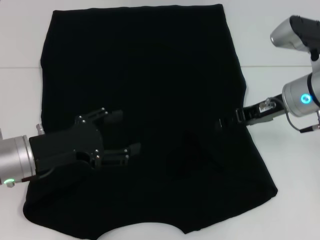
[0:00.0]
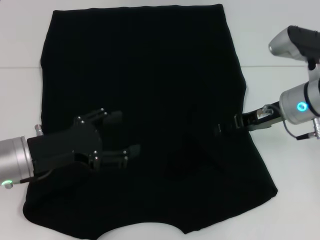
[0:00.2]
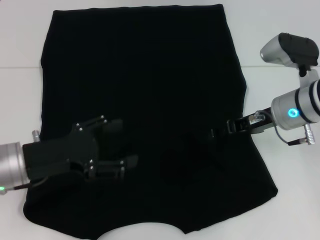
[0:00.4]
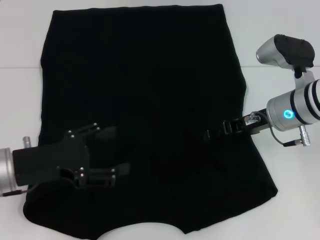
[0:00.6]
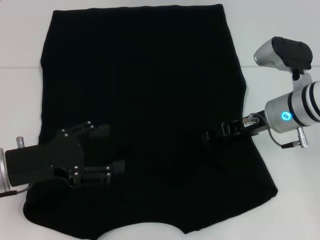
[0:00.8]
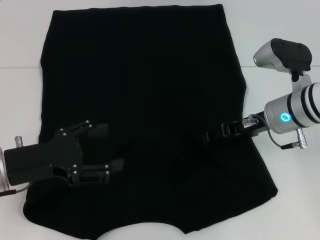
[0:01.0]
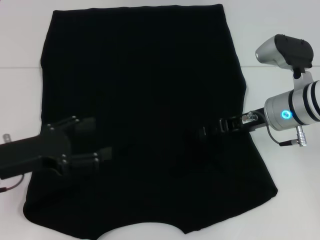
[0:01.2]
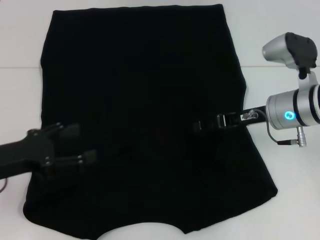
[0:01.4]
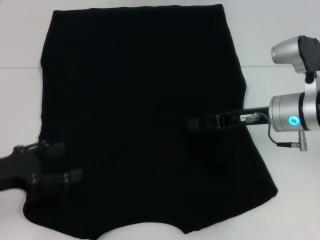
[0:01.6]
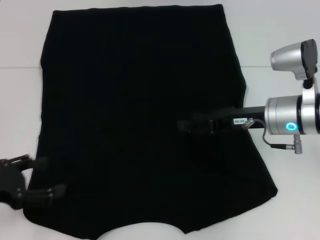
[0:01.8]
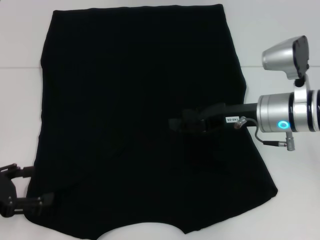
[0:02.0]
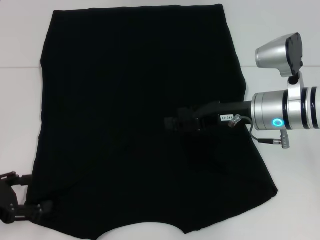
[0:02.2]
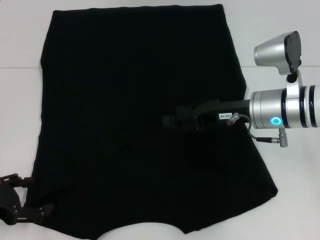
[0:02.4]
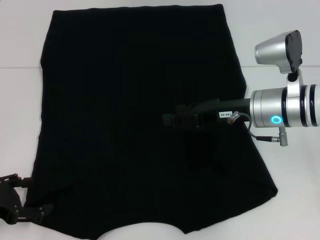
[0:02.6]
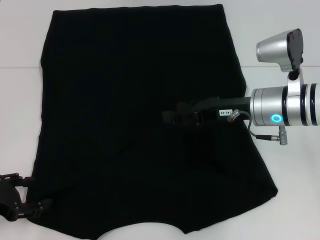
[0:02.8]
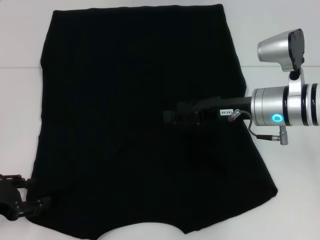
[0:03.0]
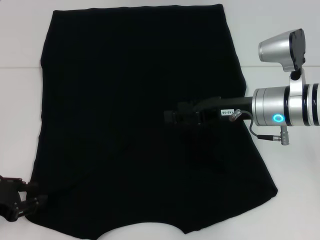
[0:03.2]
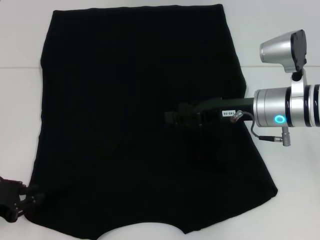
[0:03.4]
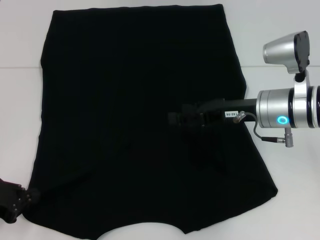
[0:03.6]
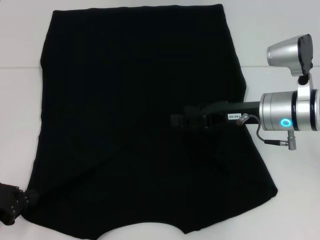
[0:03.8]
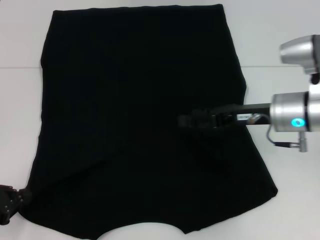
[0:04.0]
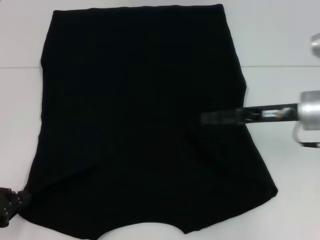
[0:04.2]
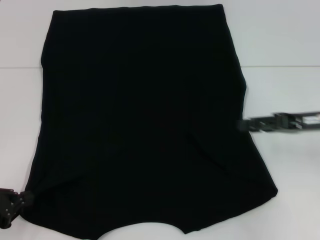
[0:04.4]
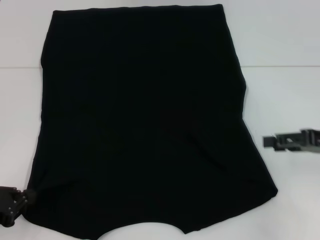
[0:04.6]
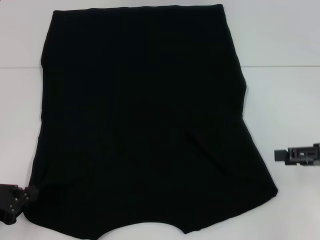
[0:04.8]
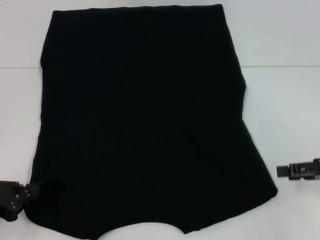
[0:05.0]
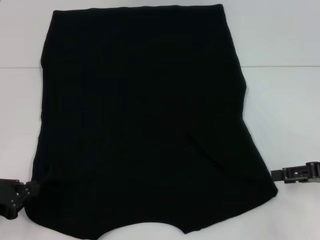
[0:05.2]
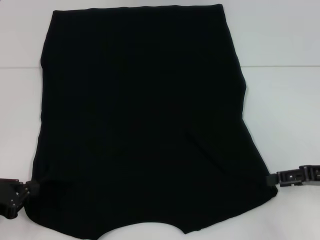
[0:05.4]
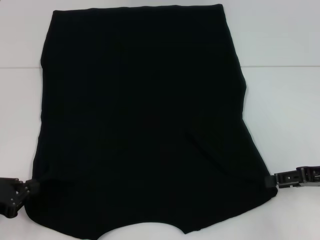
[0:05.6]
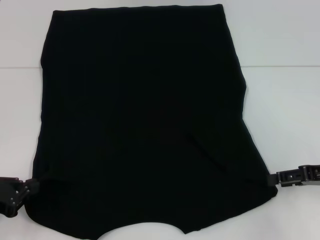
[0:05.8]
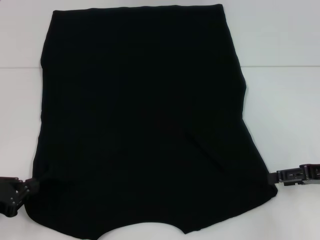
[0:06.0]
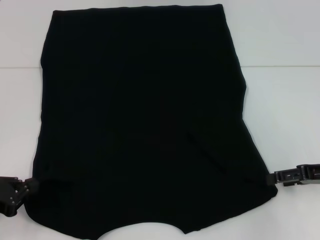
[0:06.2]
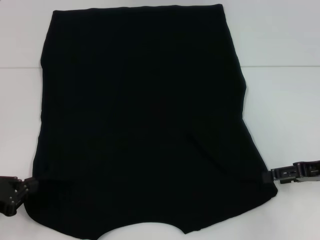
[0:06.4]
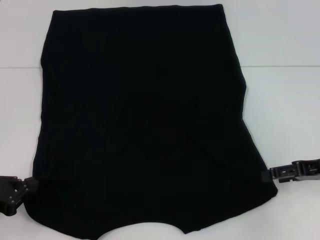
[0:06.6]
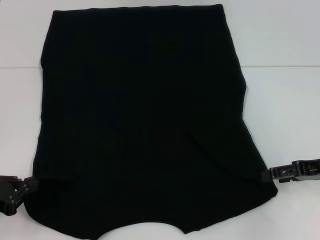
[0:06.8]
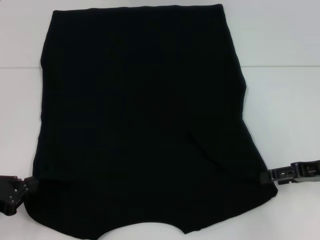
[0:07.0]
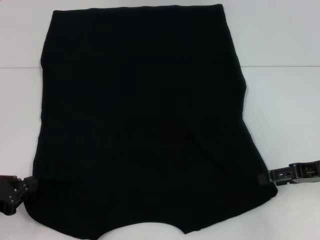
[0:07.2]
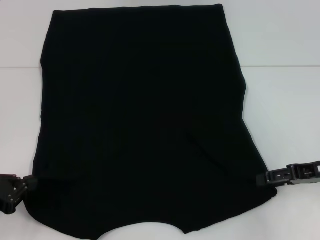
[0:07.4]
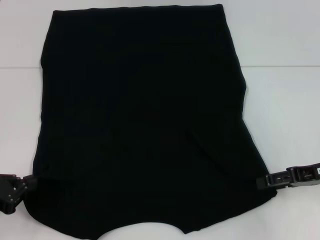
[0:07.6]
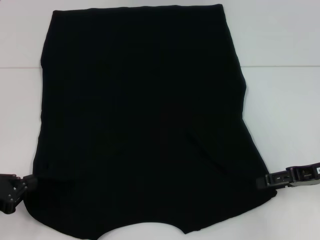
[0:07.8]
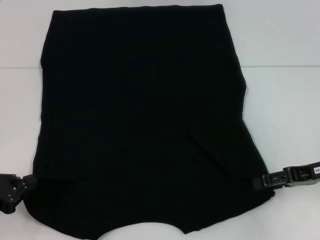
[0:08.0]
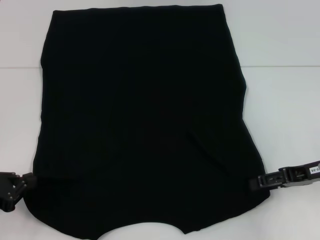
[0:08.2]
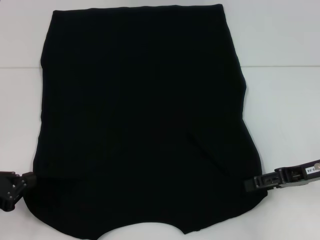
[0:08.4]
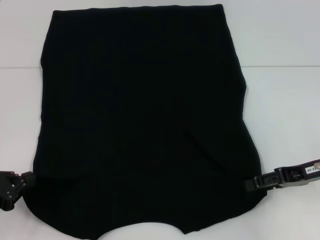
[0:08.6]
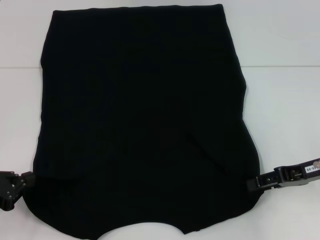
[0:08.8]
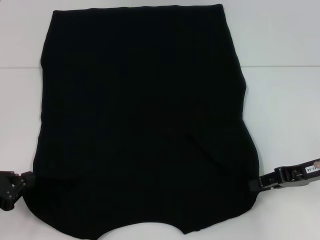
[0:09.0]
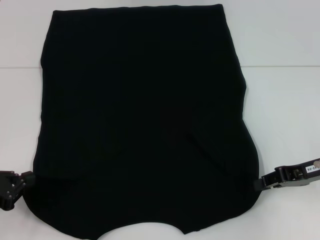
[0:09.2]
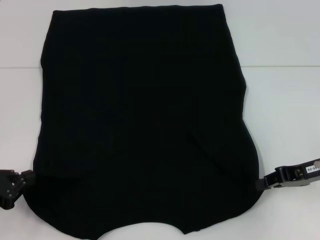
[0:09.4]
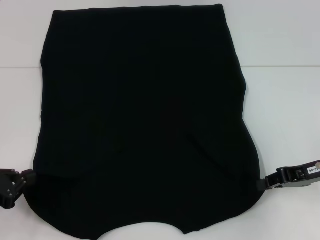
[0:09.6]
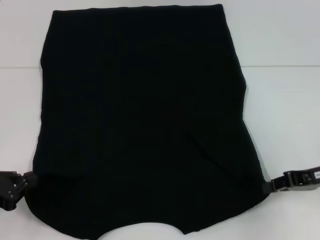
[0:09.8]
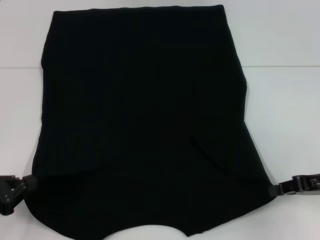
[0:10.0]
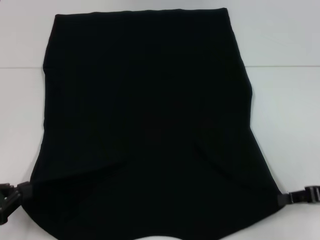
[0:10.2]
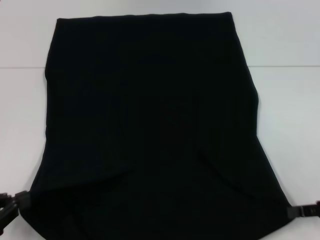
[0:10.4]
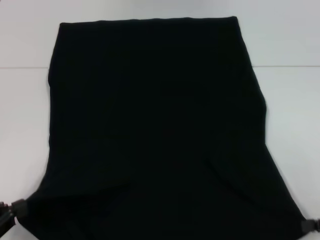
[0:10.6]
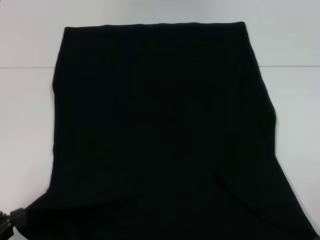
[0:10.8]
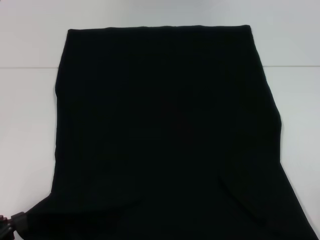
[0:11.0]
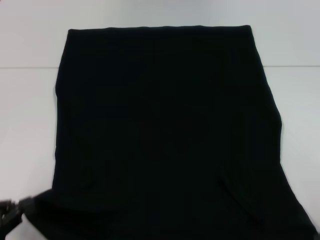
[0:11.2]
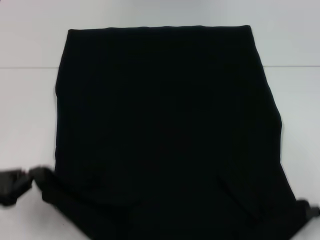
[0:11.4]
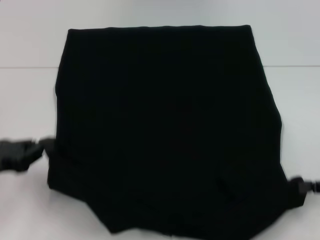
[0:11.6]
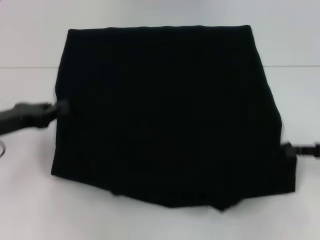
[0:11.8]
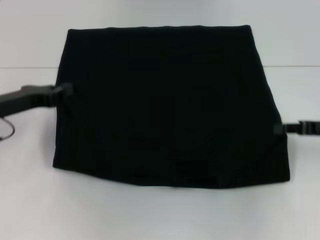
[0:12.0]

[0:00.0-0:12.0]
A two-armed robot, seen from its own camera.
Step, 0.2 to 4.6 s: Grab the bottom left corner with your left hand.
Step, 4.8 to 9.6 s: Grab the bottom right corner with your right hand.
0.0 to 1.6 s: The left gripper heads to the left, covering roughly 5 cm.
3.0 to 4.4 s: The right gripper goes about 10 cm to the right. The left gripper closes its fingers.
4.4 to 6.0 s: The right gripper ends up some 5 cm from where it was.
6.0 to 9.0 s: The grippers stay close to where they were, moving slightly.
9.0 to 10.4 s: The right gripper is displaced backward and to the right by some 10 cm, and closes up.
10.4 to 12.0 s: The right gripper shifts approximately 10 cm forward, while the left gripper travels forward by approximately 20 cm.

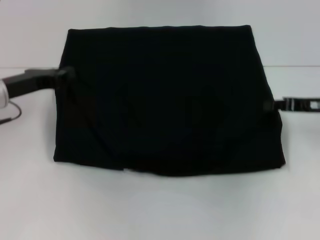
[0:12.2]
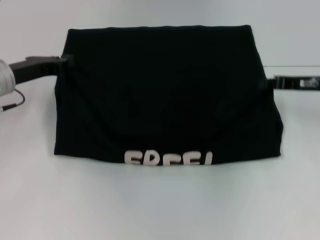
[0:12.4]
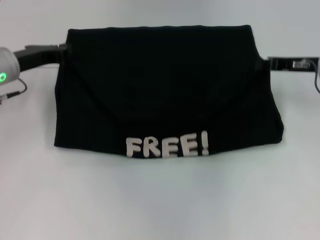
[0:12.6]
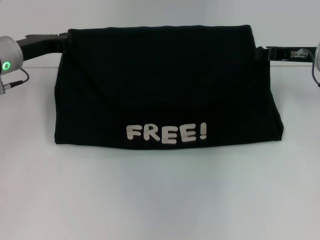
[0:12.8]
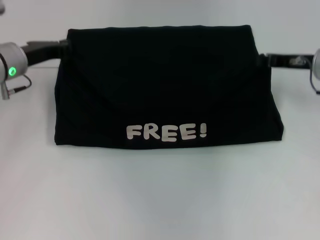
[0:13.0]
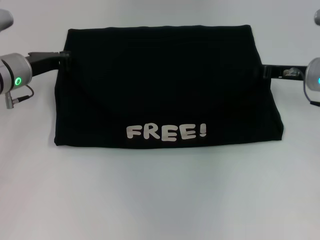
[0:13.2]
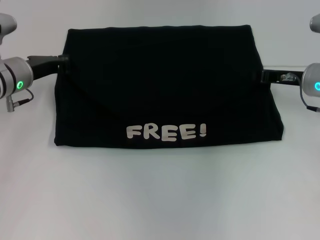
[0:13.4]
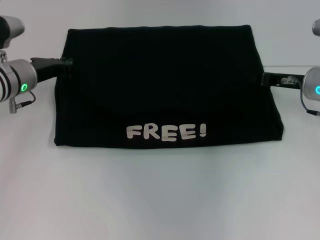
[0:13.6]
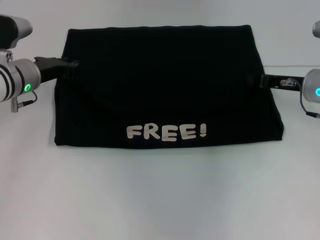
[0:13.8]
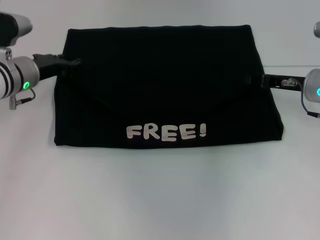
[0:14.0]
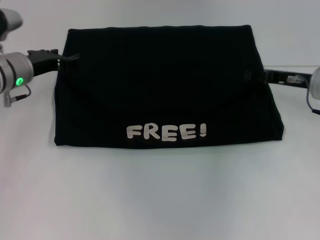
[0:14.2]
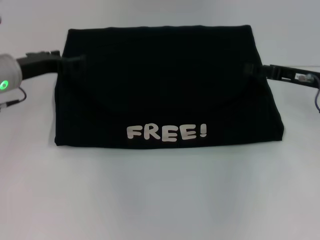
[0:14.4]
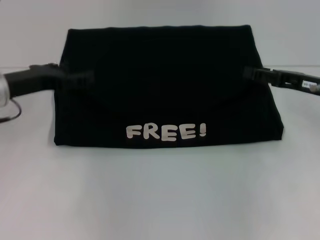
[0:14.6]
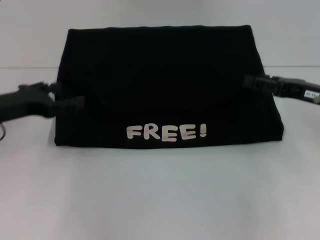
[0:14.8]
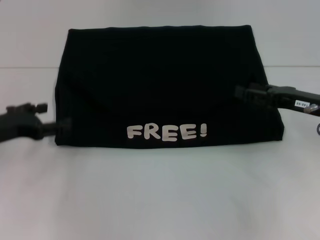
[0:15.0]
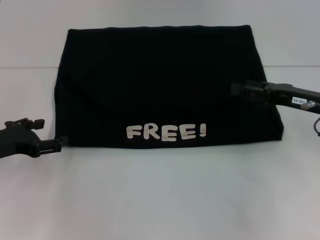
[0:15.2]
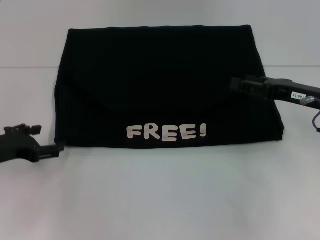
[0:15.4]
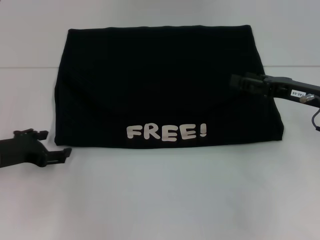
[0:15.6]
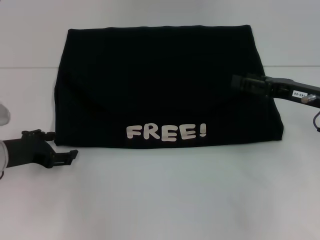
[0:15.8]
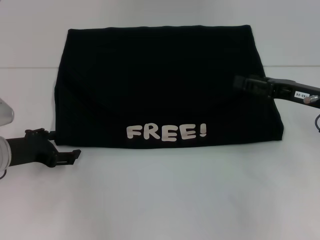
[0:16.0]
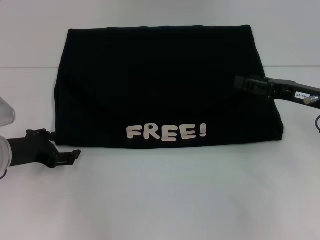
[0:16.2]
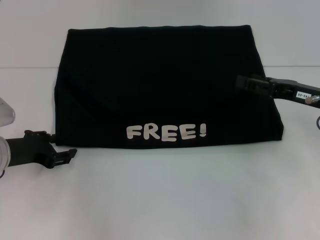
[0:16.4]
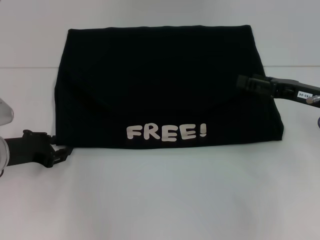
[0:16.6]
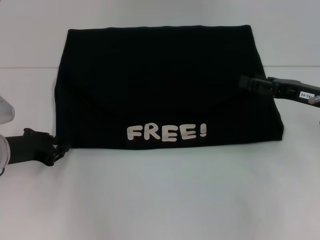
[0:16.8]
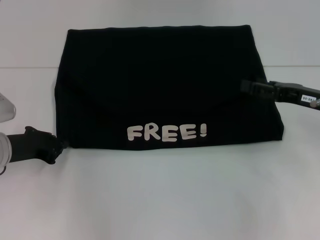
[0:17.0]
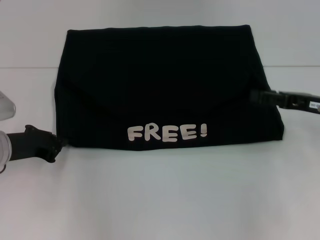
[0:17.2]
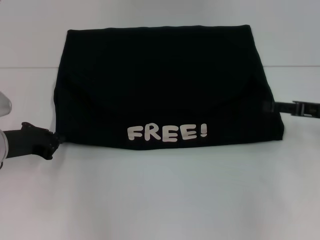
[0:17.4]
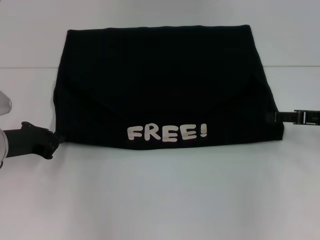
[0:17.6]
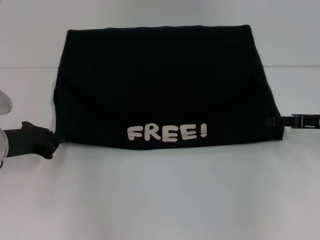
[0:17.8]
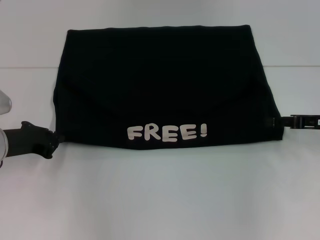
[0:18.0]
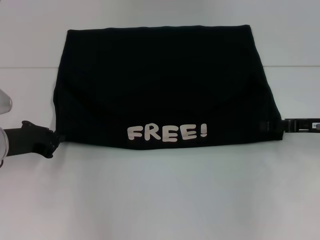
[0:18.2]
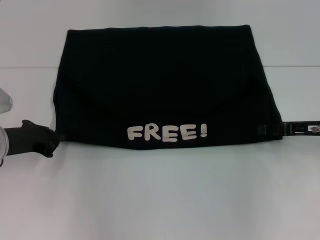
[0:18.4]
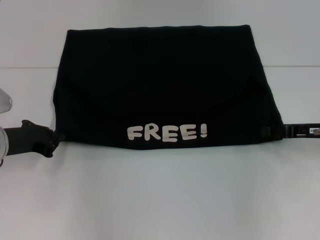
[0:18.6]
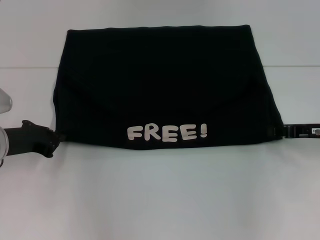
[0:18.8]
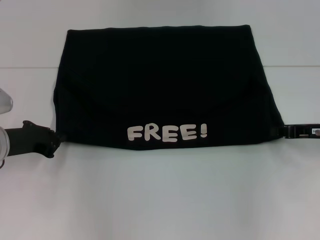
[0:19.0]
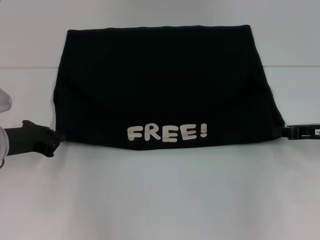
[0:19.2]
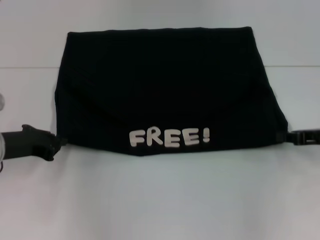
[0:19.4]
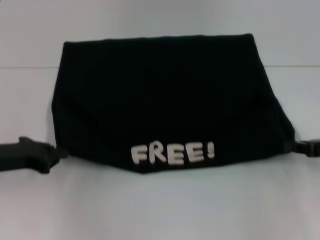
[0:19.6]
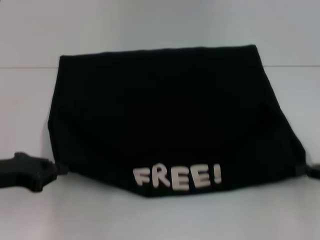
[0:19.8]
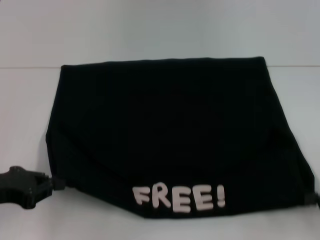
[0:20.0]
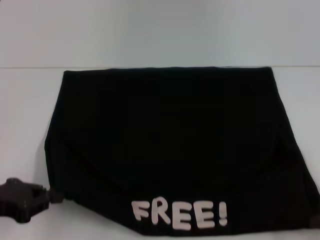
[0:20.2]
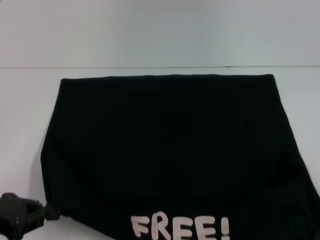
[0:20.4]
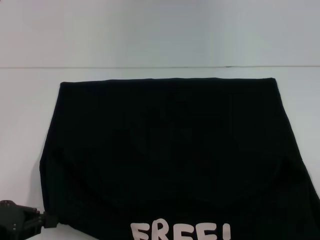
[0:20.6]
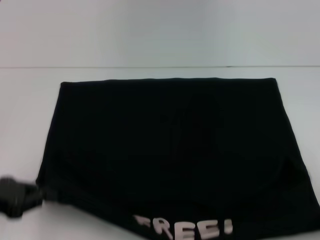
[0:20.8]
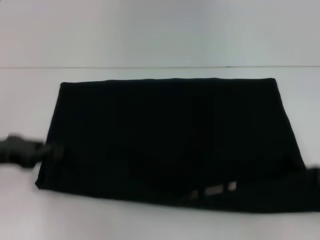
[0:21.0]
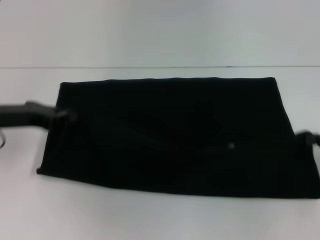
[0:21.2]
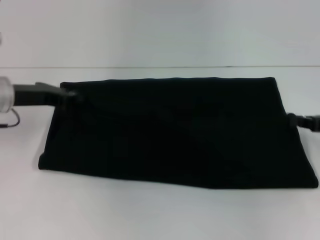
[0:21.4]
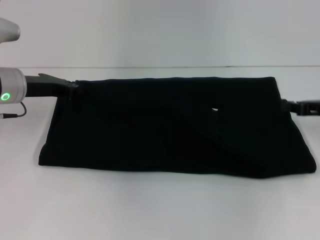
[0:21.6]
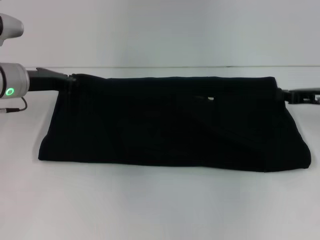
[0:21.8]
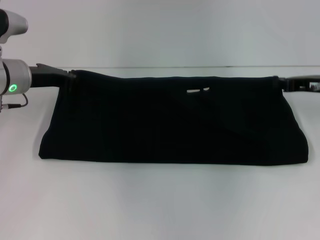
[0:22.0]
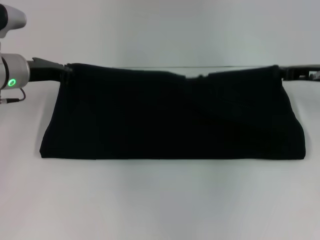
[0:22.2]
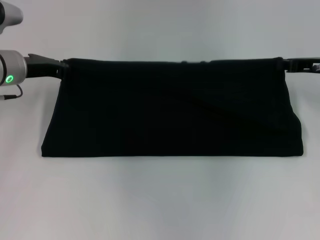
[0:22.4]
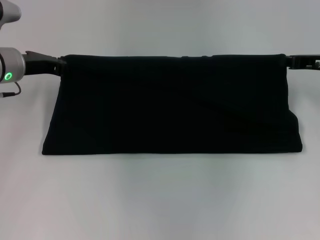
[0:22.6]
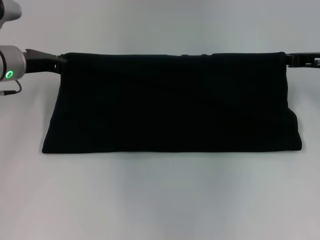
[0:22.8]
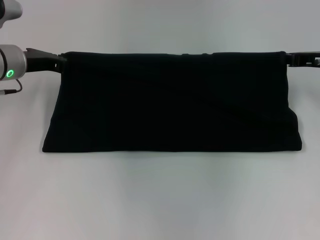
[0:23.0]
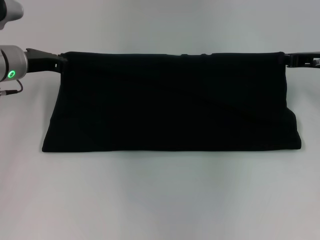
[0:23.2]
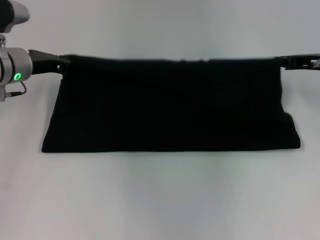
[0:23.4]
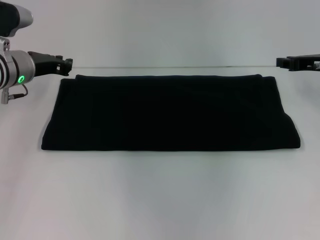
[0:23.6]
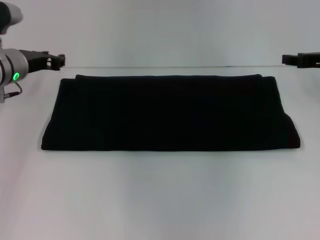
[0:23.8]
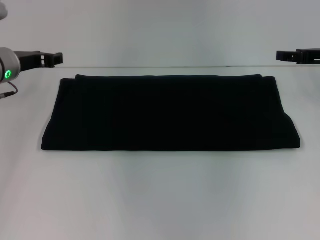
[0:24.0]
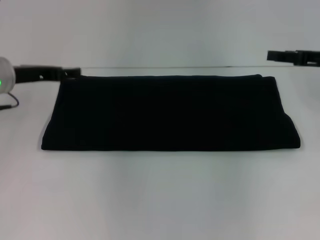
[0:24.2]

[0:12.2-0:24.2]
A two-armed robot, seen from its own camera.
Step, 14.0 to 20.4 s: Pull the clothes with your left hand.
Step, 14.0 to 20.4 s: Pull the clothes with your right hand.
Step, 20.6 to 23.6 s: Fold the clothes with your right hand.
12.2 to 13.8 s: The right gripper changes place by some 5 cm. Meanwhile the left gripper moves forward, approximately 5 cm.
13.8 to 15.2 s: The right gripper shifts approximately 5 cm backward, and opens up; the left gripper shifts approximately 15 cm backward and to the left, and opens.
15.2 to 16.6 s: The grippers make only small movements.
16.6 to 18.2 s: The left gripper closes up.
18.2 to 19.8 s: The right gripper moves backward and to the right, roughly 10 cm, and closes up. Meanwhile the left gripper moves backward, some 5 cm.
19.8 to 21.2 s: The right gripper travels backward and back again, about 10 cm each way; the left gripper travels forward by about 10 cm.
21.2 to 22.6 s: The right gripper shifts some 15 cm forward and to the left. Meanwhile the left gripper shifts some 10 cm forward.
22.6 to 24.2 s: The right gripper opens up; the left gripper opens up.
